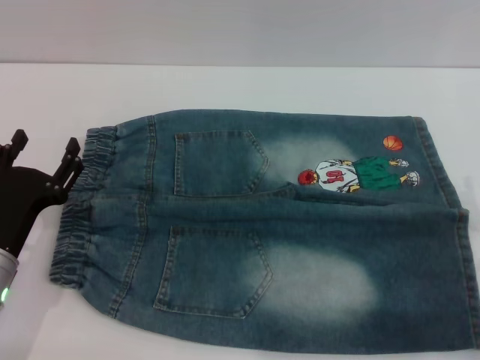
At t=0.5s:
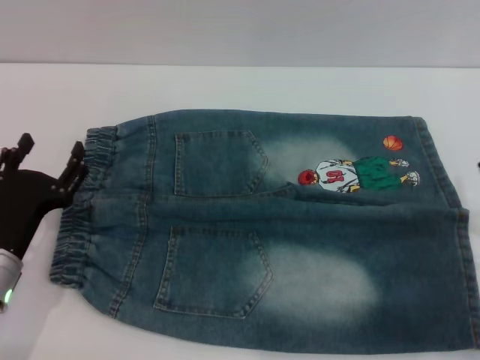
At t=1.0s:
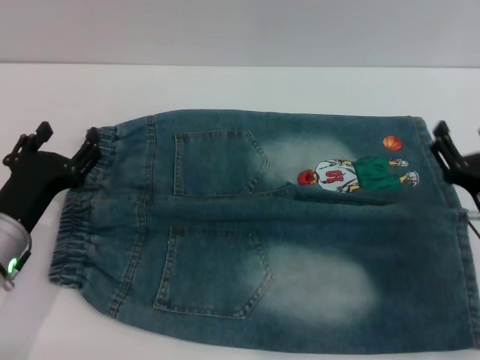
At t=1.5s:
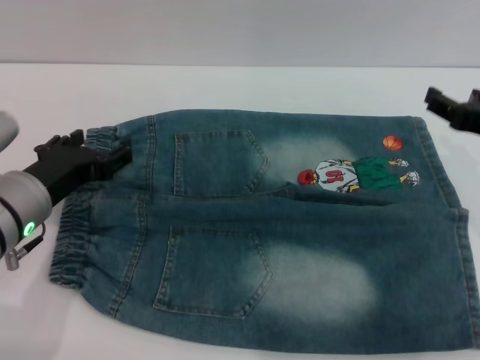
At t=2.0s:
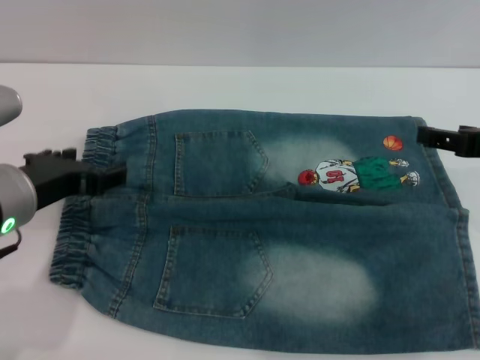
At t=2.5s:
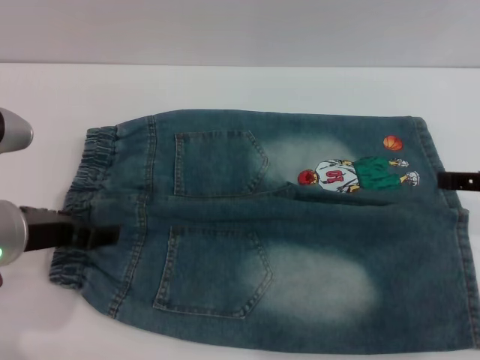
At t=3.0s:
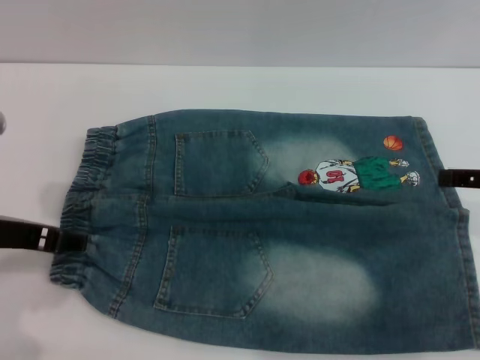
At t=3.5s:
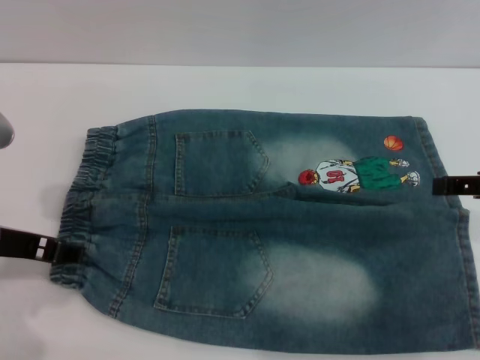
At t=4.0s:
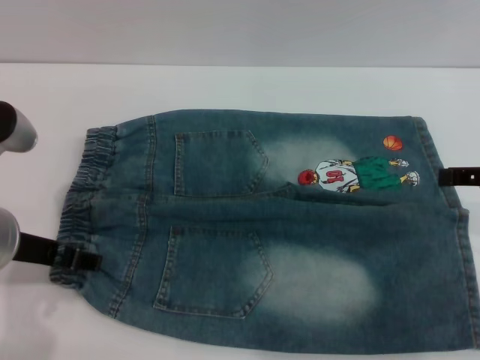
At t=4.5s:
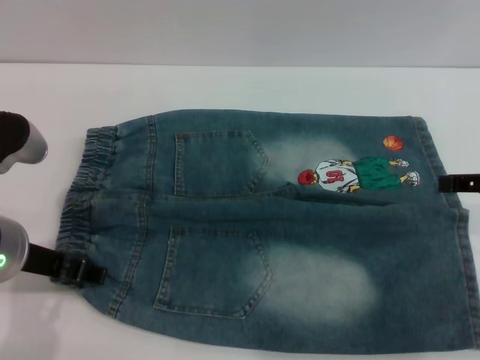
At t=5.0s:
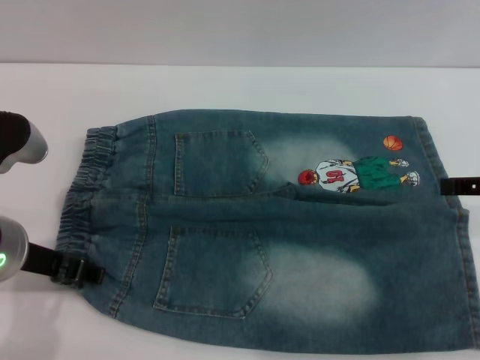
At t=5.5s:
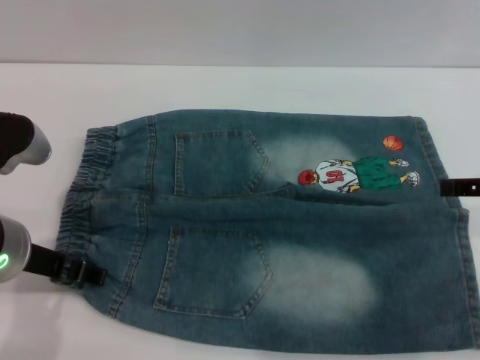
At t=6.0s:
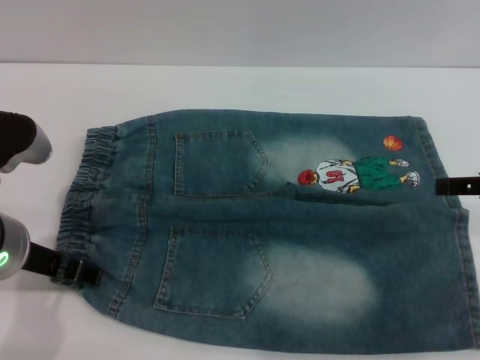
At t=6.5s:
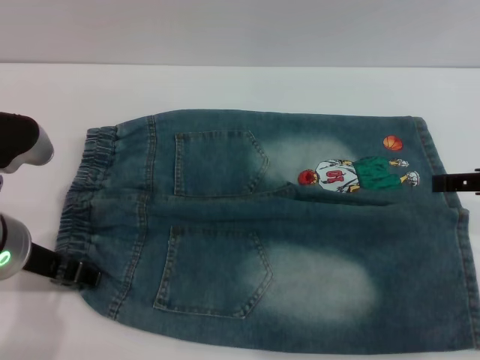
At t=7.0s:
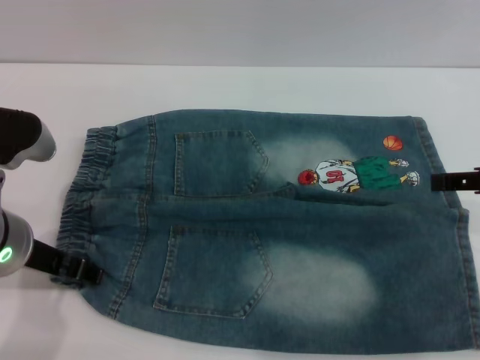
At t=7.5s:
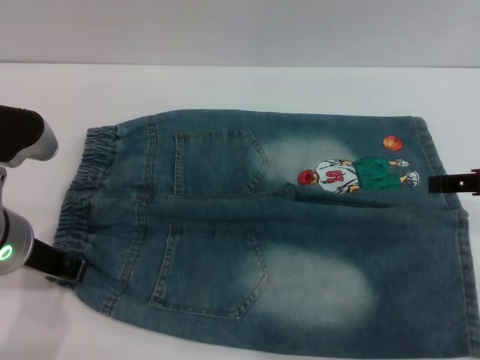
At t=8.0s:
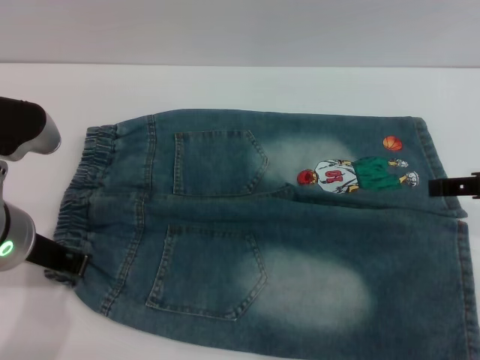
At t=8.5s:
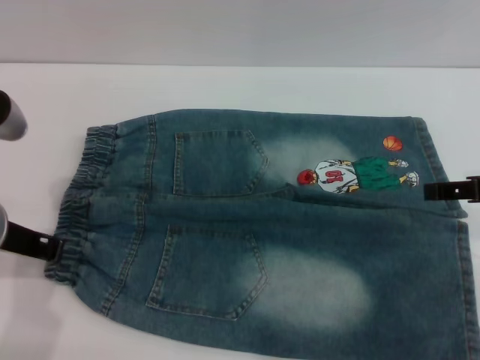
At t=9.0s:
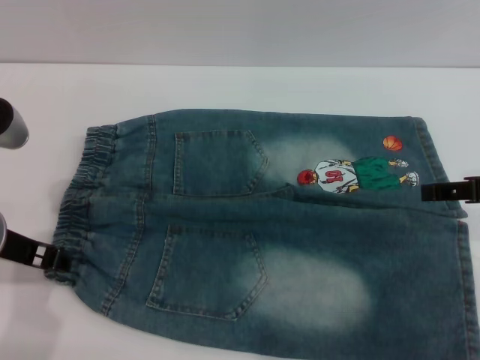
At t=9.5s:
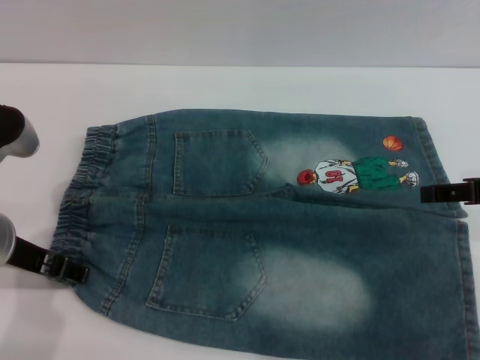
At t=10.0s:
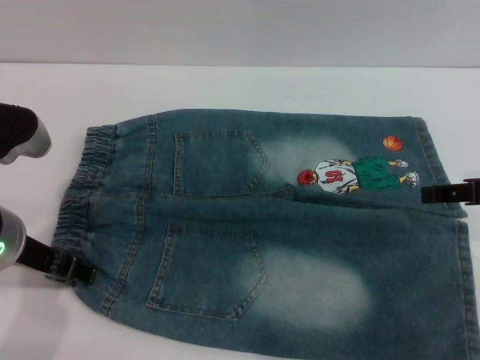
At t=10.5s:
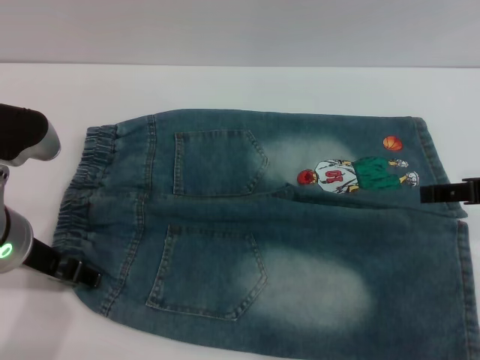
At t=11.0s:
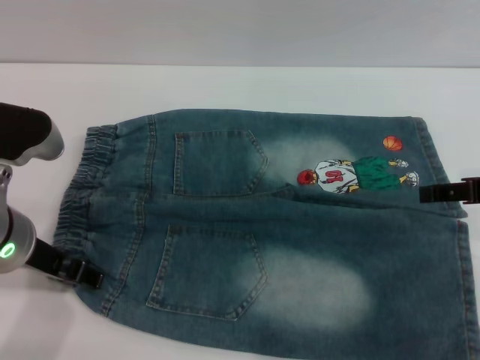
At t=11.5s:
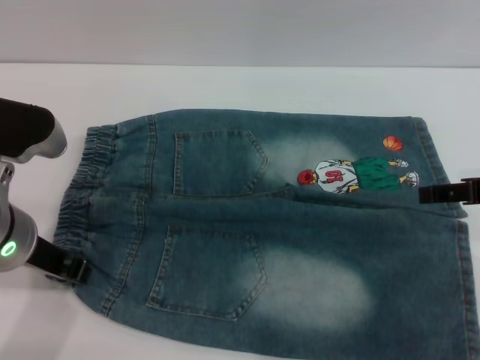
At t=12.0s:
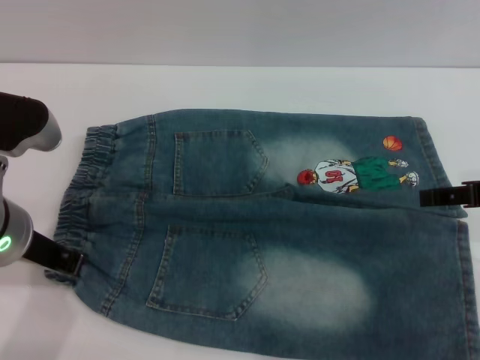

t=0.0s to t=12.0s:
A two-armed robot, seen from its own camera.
t=0.0s to t=2.0s: The left gripper moves upward, about 15 cm. The right gripper shifts roughly 20 cm upward and forward.
t=4.0s to t=6.0s: The two grippers keep their place.
t=6.0s to t=8.0s: The left gripper closes up.
t=8.0s to t=10.0s: The left gripper opens up.
t=10.0s to t=12.0s: The left gripper closes.

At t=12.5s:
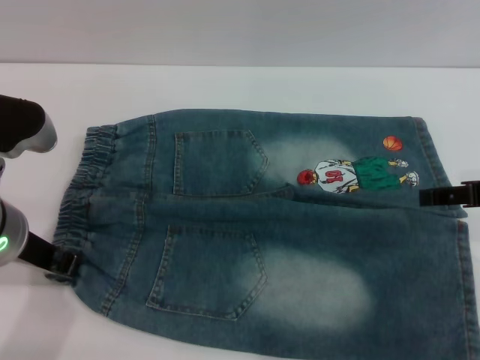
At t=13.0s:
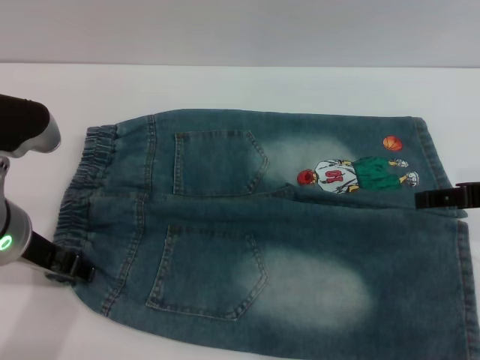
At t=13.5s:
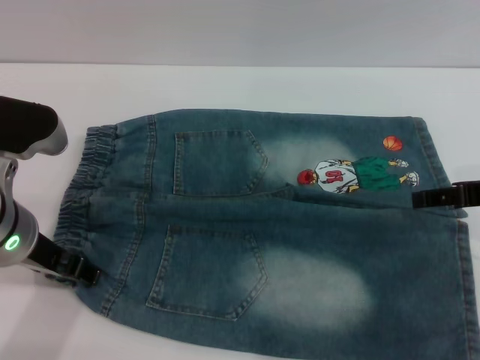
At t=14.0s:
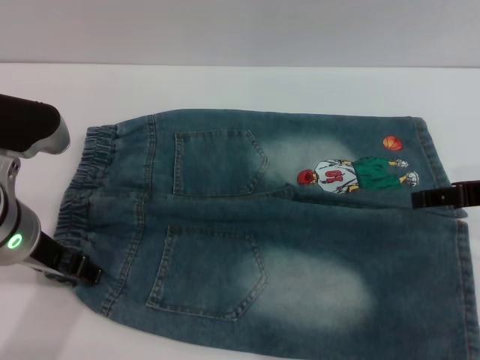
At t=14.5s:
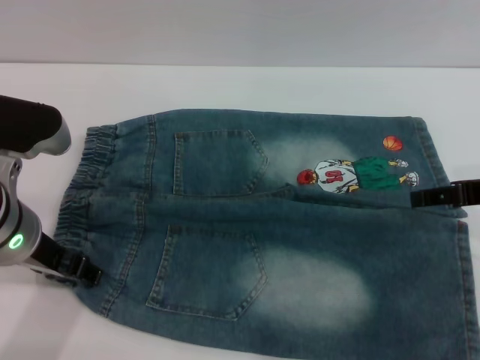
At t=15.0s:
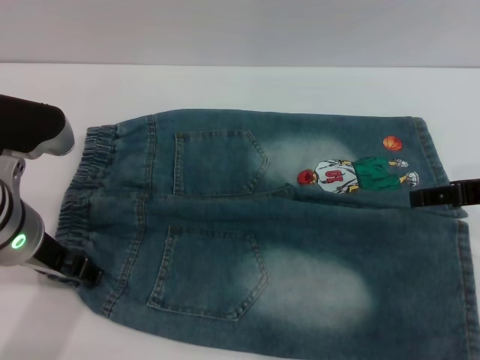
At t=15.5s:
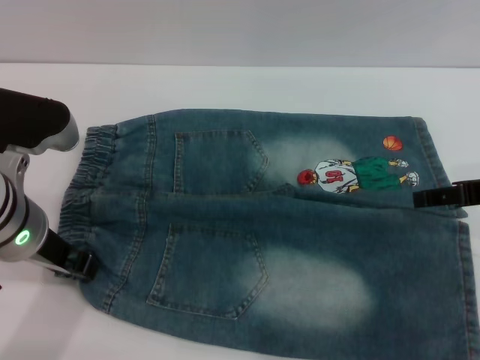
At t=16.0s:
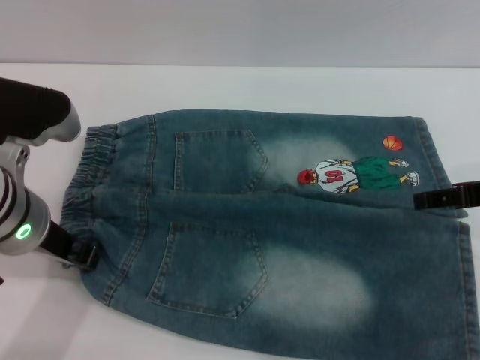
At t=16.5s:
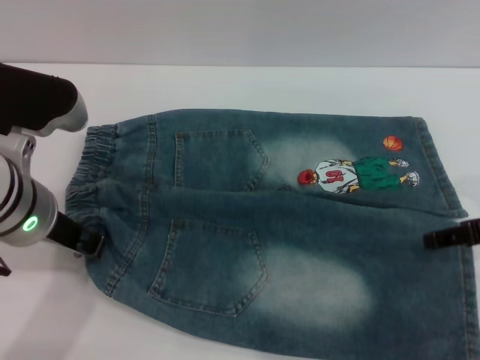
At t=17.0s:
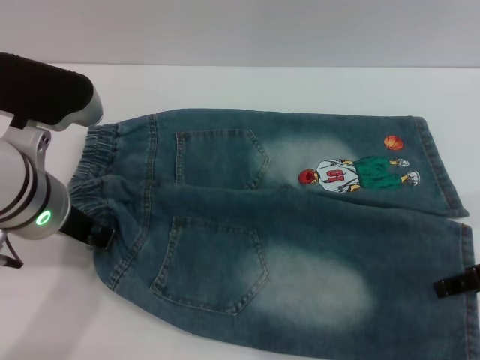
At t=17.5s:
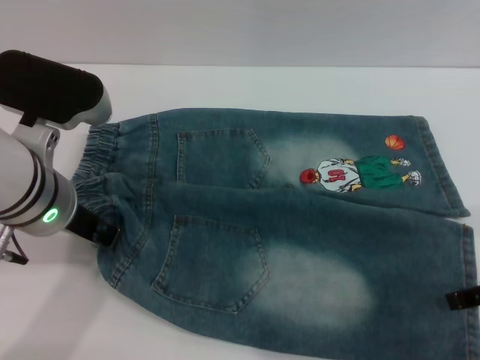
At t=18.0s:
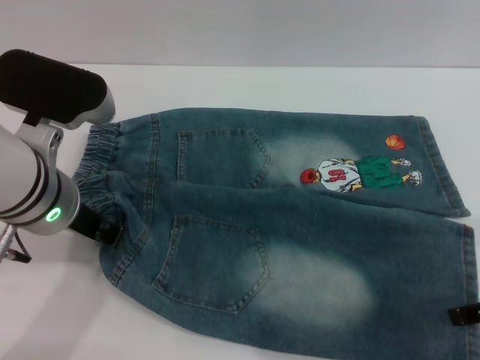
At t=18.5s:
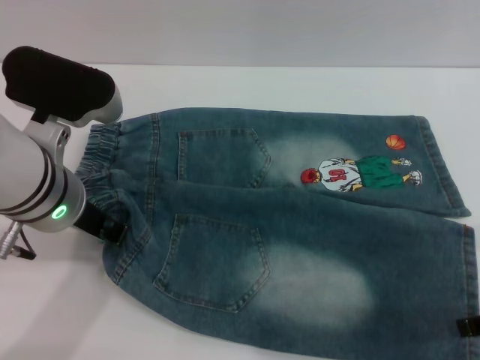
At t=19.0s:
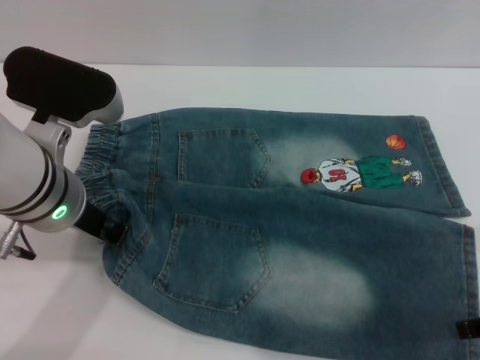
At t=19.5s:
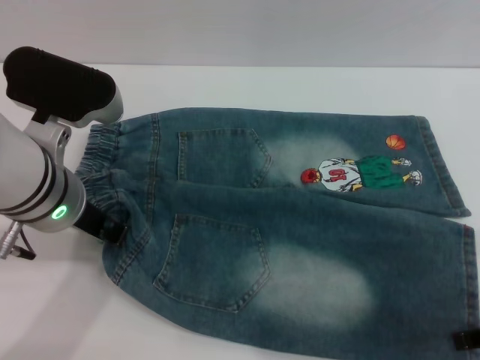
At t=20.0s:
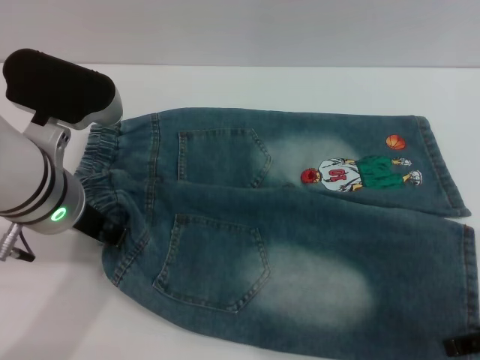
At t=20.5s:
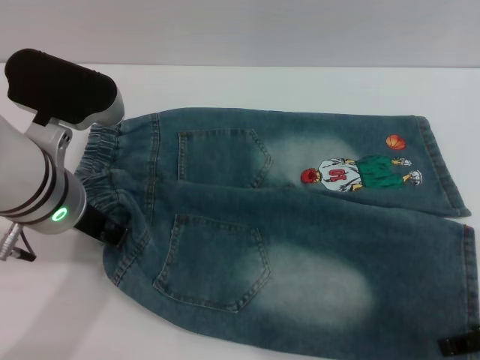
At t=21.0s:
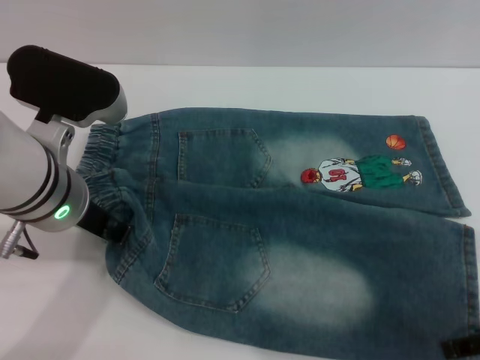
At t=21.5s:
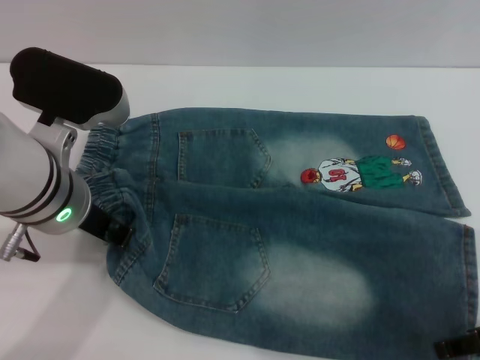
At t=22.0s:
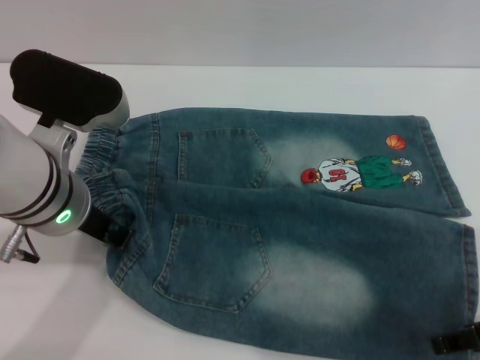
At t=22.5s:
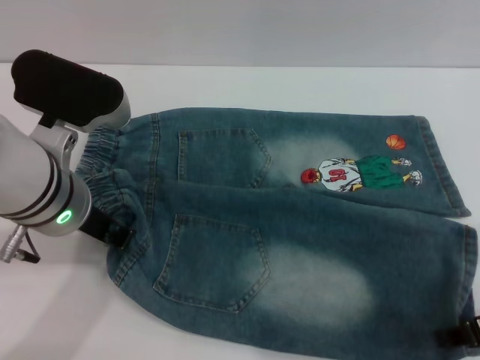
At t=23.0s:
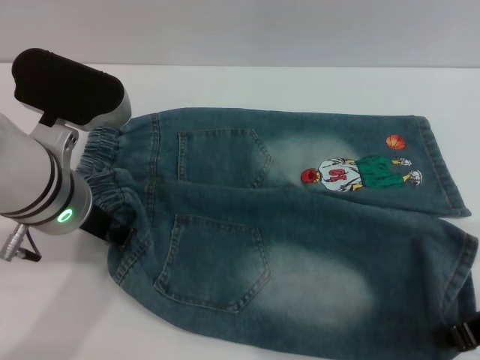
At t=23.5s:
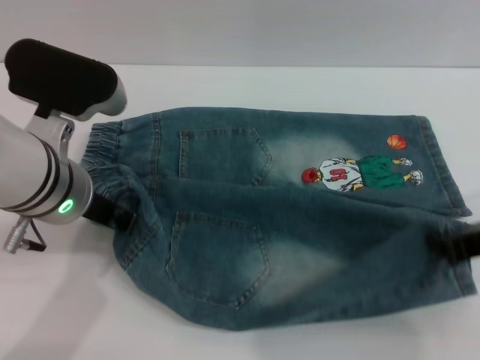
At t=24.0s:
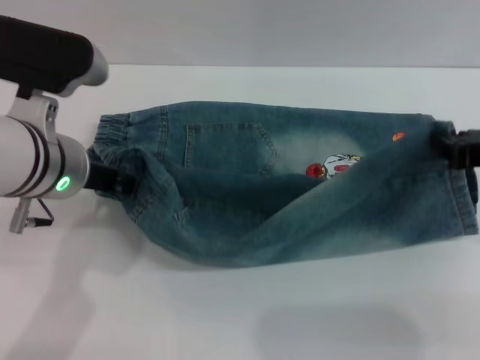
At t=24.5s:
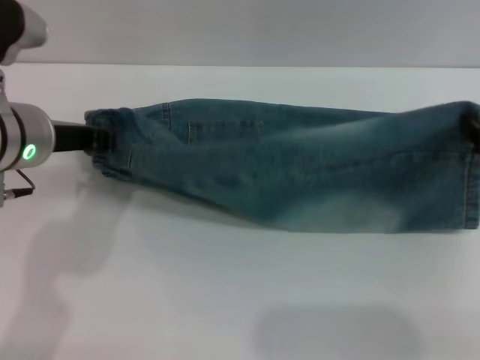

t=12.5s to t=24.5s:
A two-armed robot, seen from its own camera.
t=12.5s to t=14.5s: The left gripper opens its fingers.
t=14.5s to t=16.5s: The left gripper closes its fingers.
t=16.5s to t=18.5s: The right gripper is displaced backward by approximately 5 cm.
t=18.5s to t=20.5s: The grippers move only a little.
t=20.5s to t=22.5s: Both grippers stay put.
t=22.5s to t=24.5s: The right gripper moves forward, some 5 cm, and closes. Meanwhile the left gripper changes place by approximately 5 cm.

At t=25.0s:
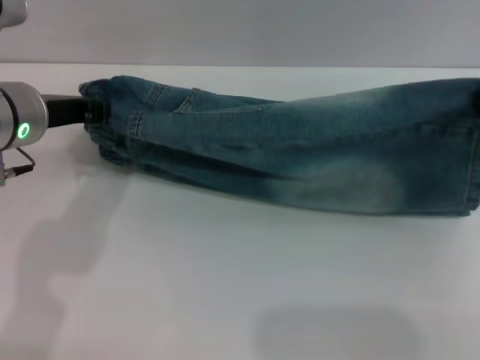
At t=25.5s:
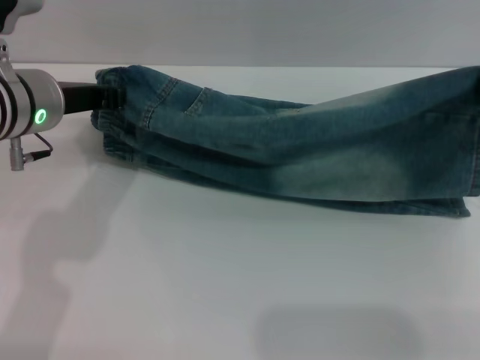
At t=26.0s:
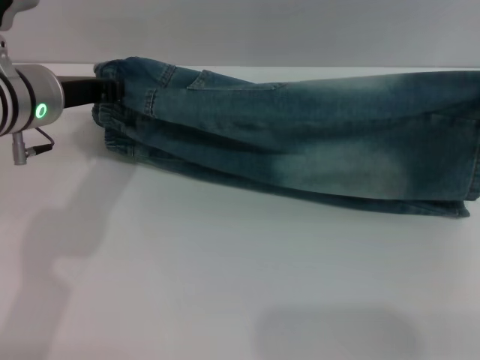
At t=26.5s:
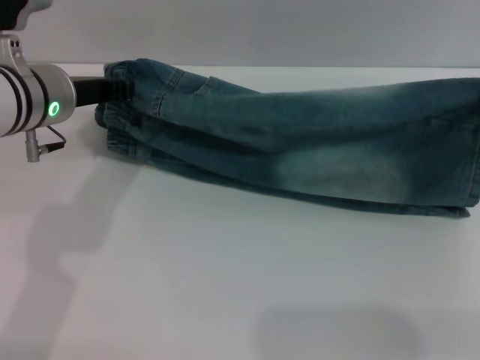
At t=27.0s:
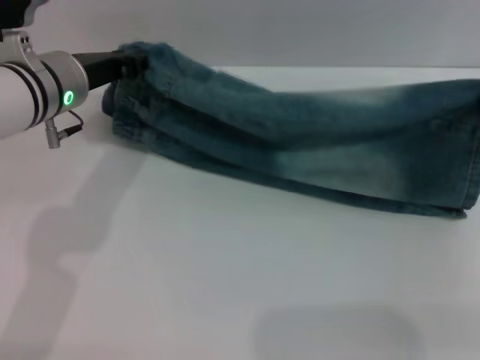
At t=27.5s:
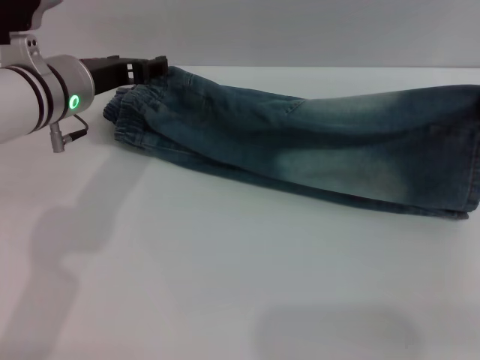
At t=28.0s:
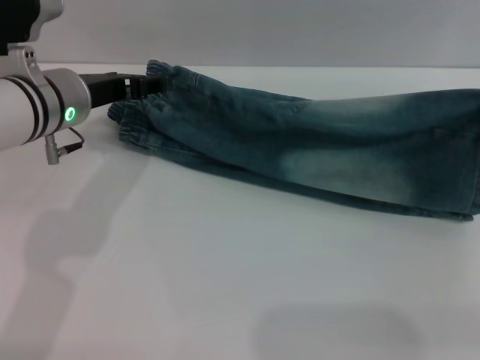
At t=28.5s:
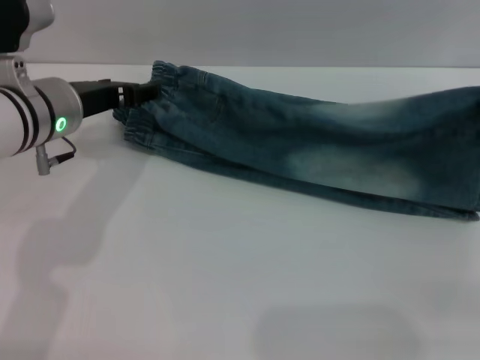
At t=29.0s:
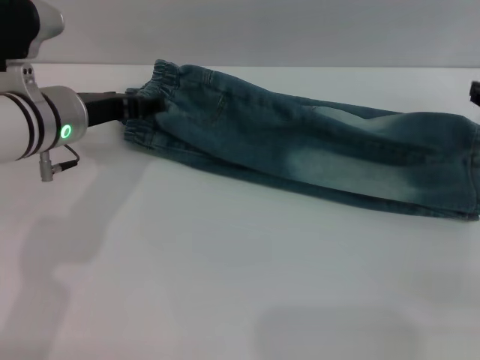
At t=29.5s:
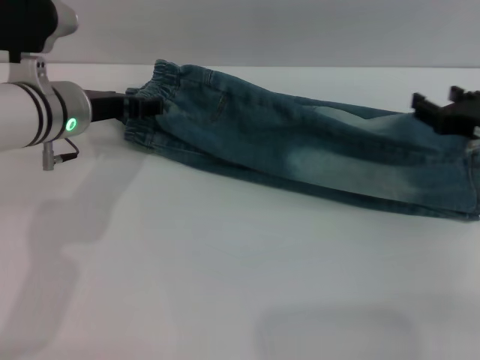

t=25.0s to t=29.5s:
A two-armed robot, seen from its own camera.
Step, t=25.0s to t=29.0s: Fold the bottom of the pants upward with both grippers.
t=25.0s to t=27.0s: The left gripper is displaced forward by some 5 cm.
t=27.0s to t=29.5s: The left gripper opens its fingers. The right gripper opens up.
